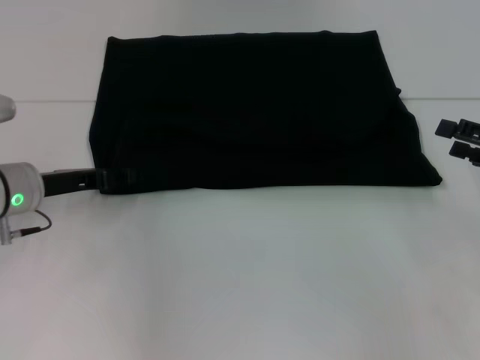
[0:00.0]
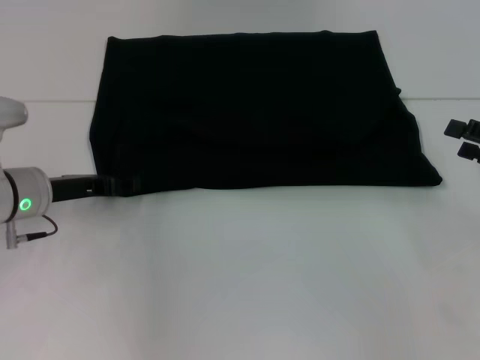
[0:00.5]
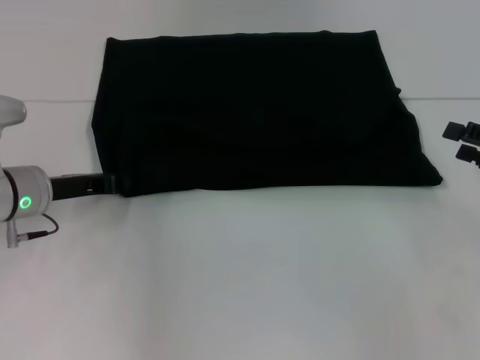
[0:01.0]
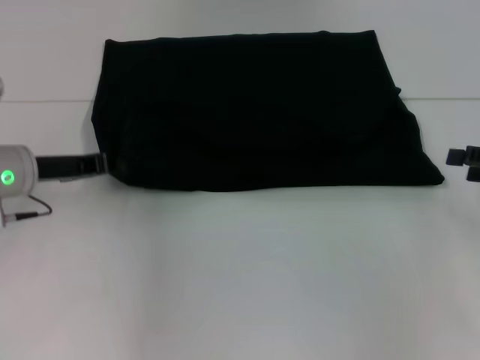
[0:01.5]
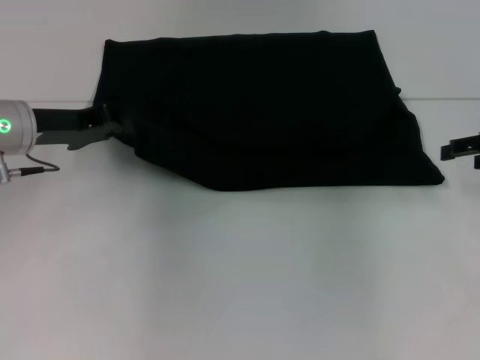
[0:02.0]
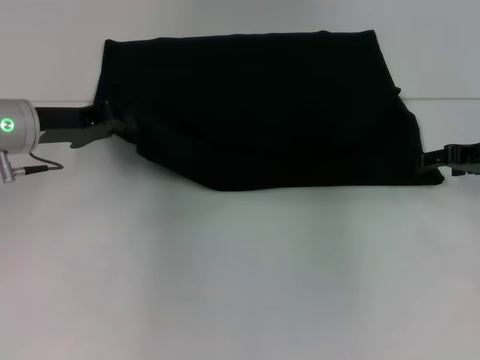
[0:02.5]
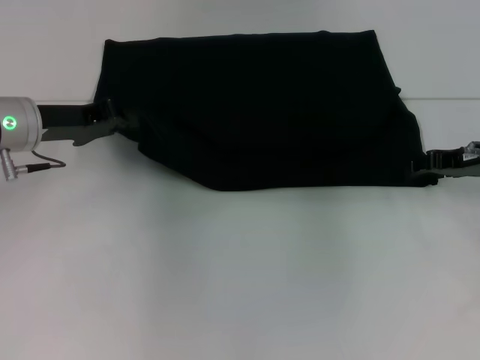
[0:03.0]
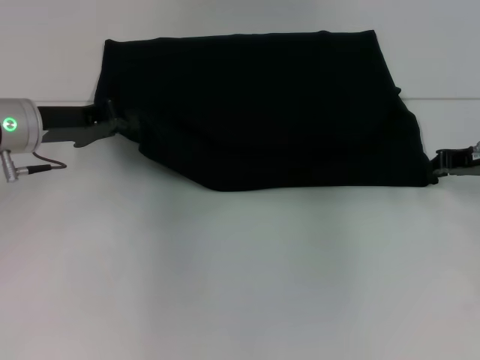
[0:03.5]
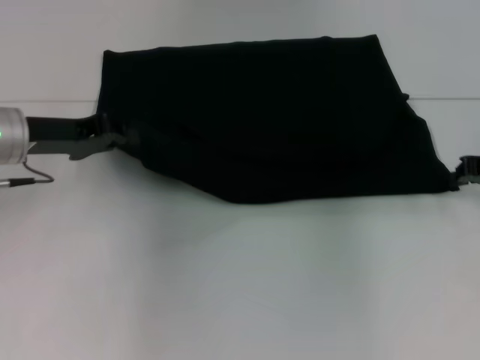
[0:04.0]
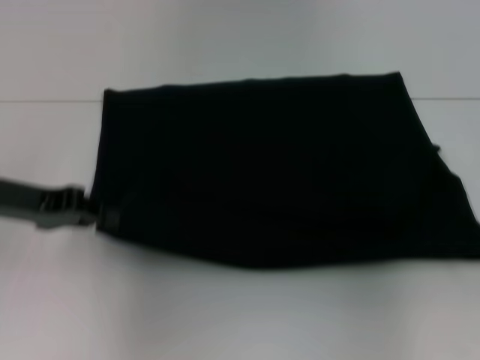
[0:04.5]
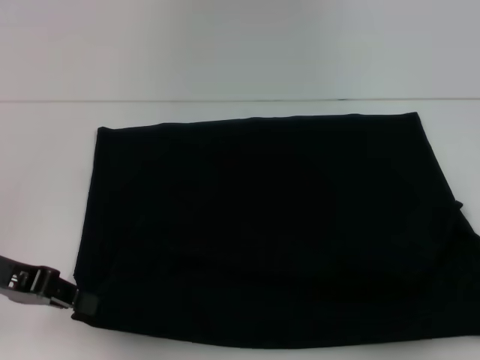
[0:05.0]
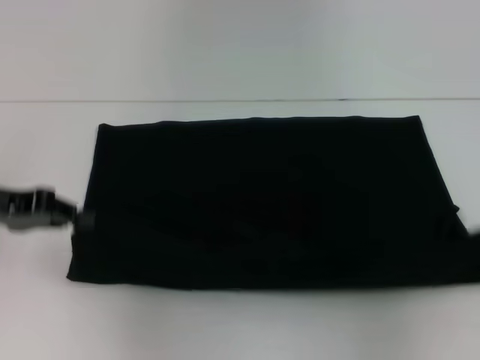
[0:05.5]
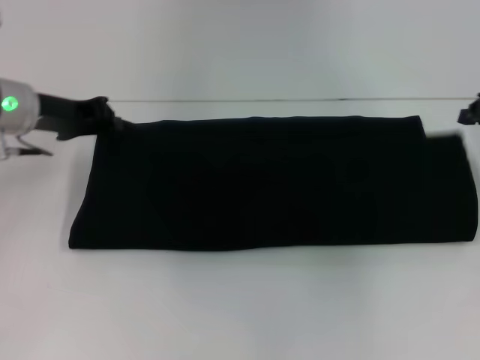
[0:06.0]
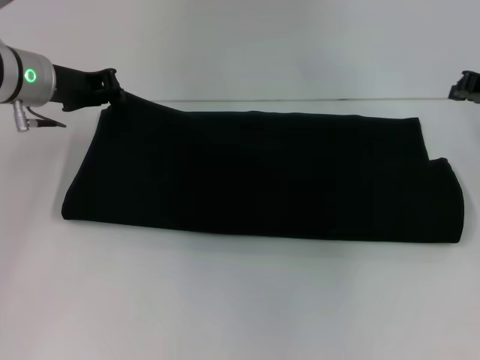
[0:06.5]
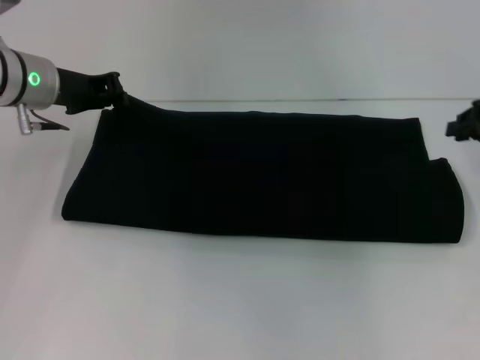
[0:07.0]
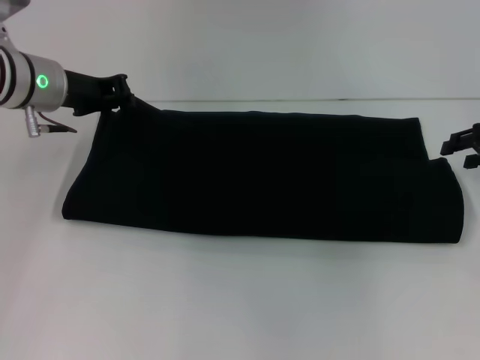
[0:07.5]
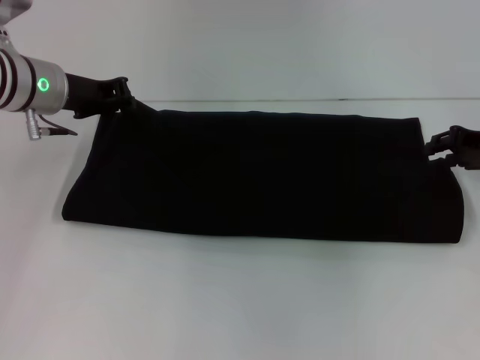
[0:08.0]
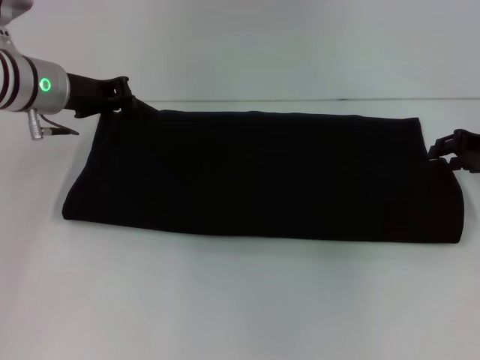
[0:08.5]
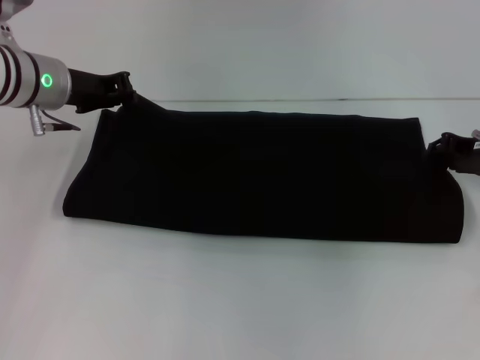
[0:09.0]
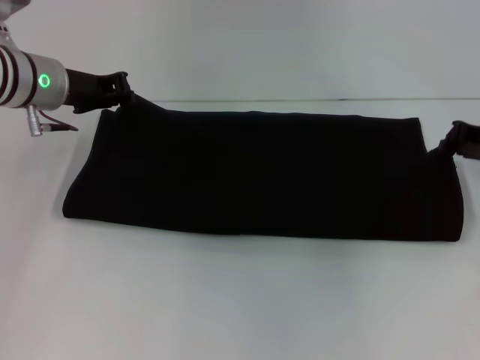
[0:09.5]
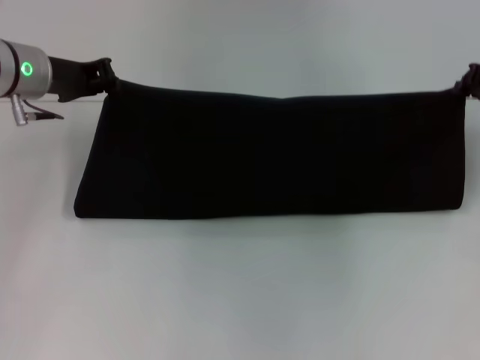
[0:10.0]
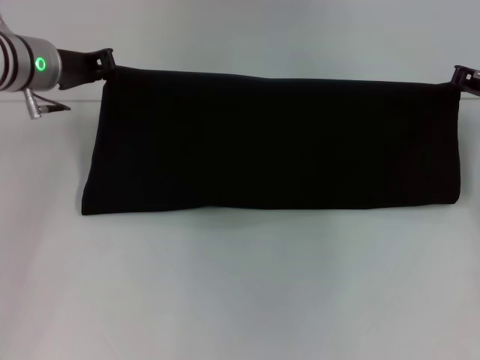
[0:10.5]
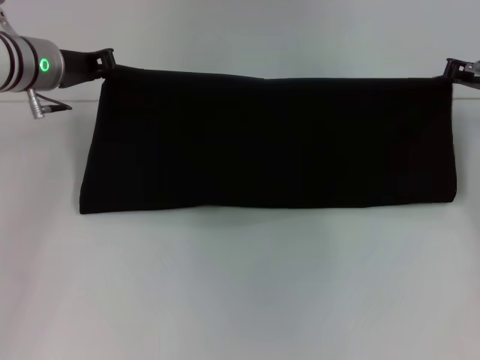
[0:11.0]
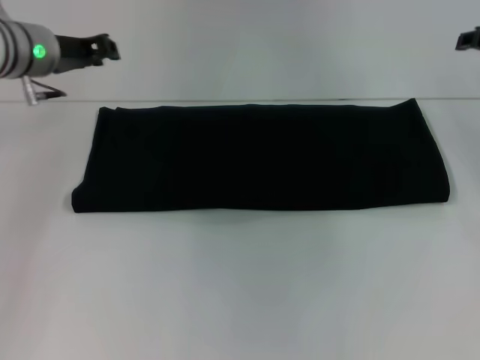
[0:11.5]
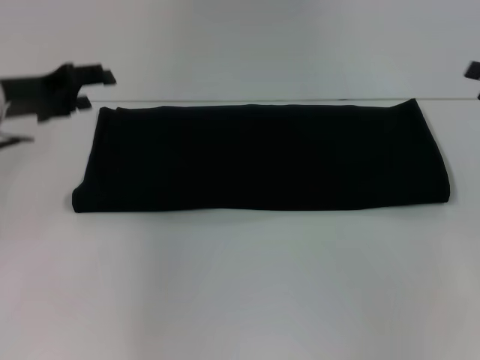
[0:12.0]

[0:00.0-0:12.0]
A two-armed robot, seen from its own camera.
Step, 0:00.0 to 0:04.5: Pull the clothes with your left hand.
Step, 0:00.0 to 0:04.5: Pull the clothes with your right hand.
Step, 0:05.0 to 0:11.0: Fold the clothes with your right hand.
0:00.0 to 0:02.0: The left gripper is displaced upward by about 5 cm, and closes, while the right gripper moves forward, approximately 5 cm.
0:02.0 to 0:04.0: The right gripper closes.
0:04.0 to 0:06.0: The left gripper moves about 10 cm backward and comes back. The right gripper goes backward and returns, roughly 15 cm each way.
0:06.0 to 0:08.0: The right gripper opens up.
0:08.0 to 0:10.0: The right gripper ends up about 5 cm from where it was, and closes its fingers.
0:10.0 to 0:12.0: The right gripper heads backward and to the right, covering approximately 10 cm, and opens. The left gripper shifts approximately 5 cm backward, and opens up.

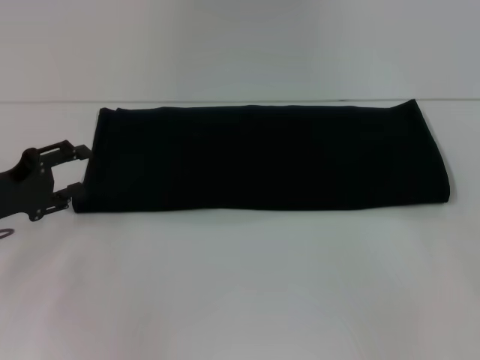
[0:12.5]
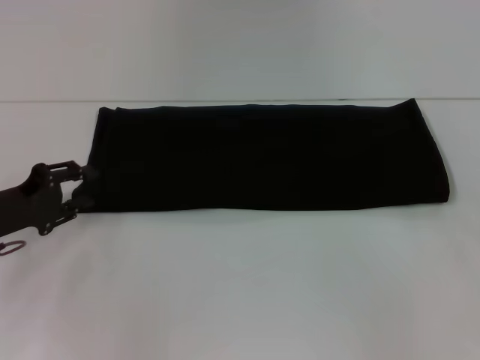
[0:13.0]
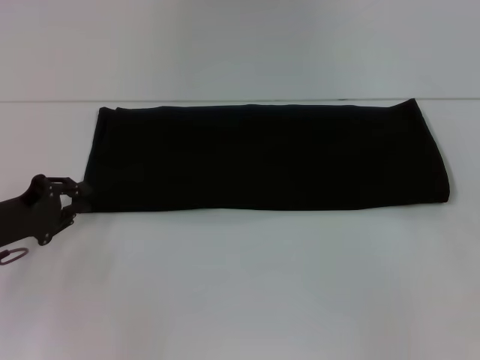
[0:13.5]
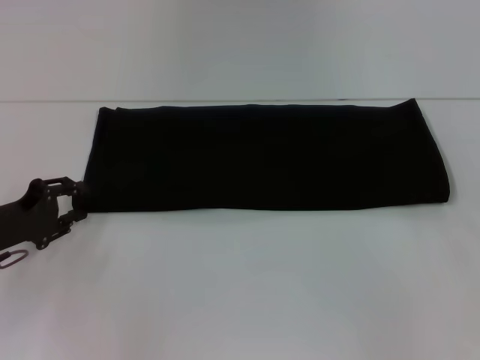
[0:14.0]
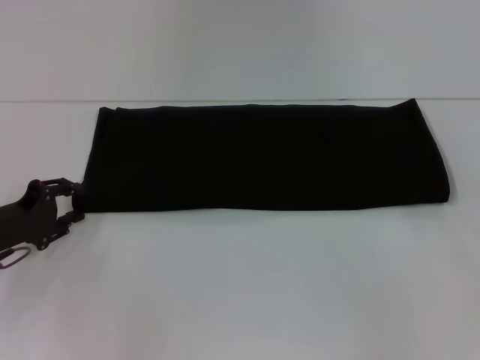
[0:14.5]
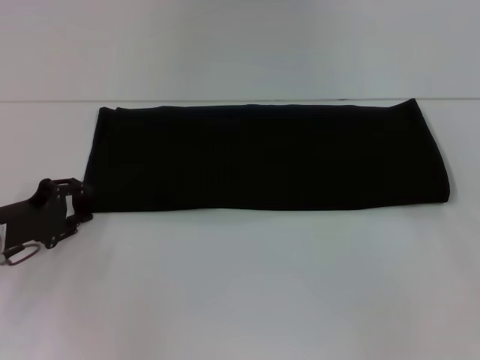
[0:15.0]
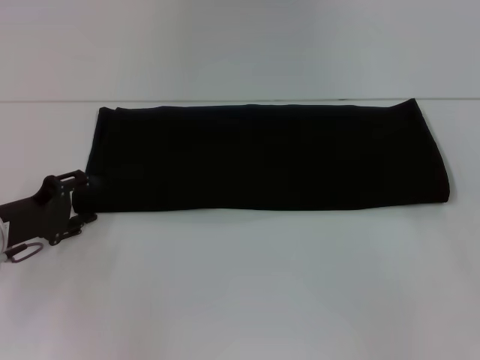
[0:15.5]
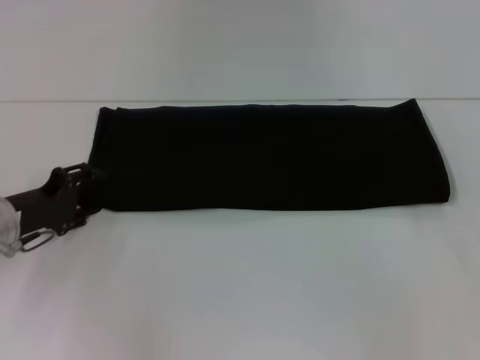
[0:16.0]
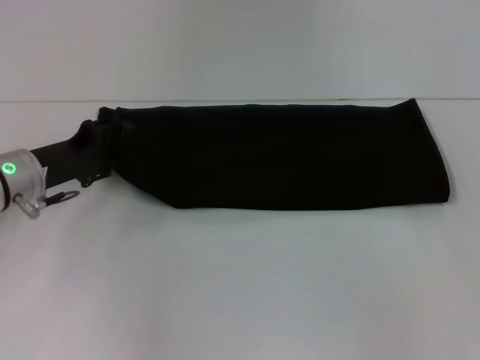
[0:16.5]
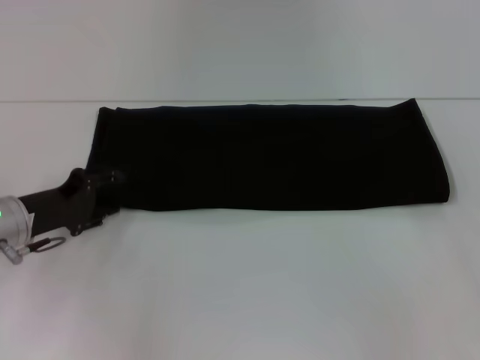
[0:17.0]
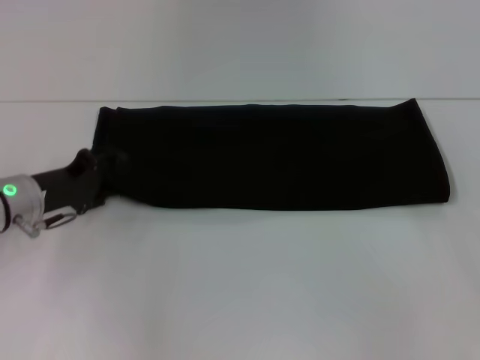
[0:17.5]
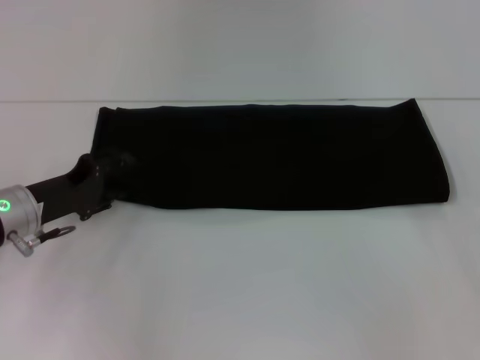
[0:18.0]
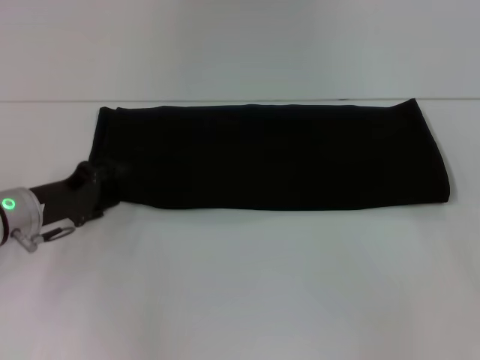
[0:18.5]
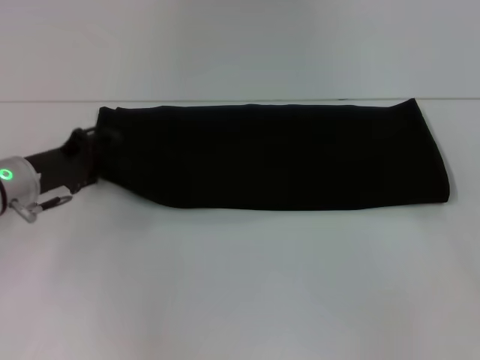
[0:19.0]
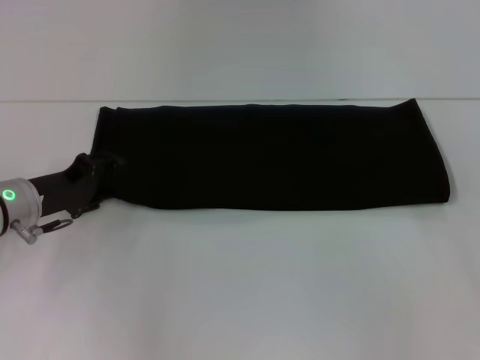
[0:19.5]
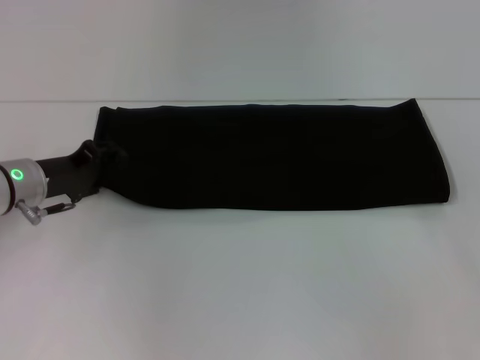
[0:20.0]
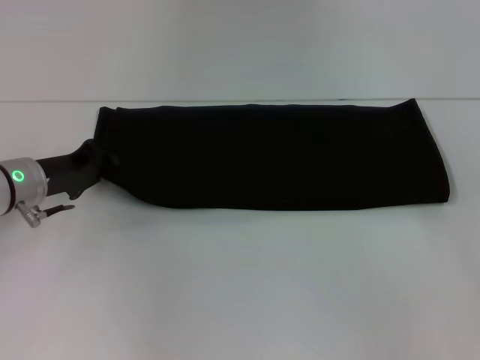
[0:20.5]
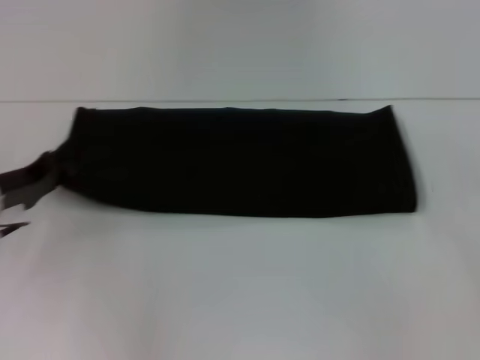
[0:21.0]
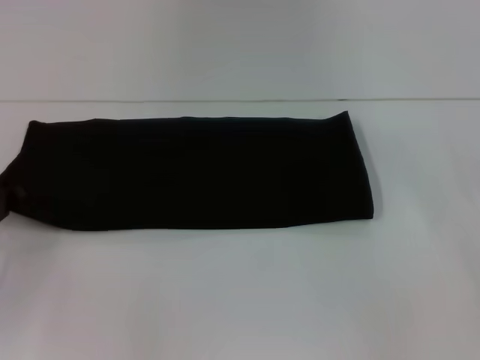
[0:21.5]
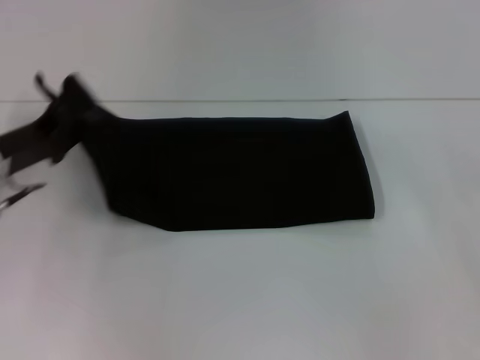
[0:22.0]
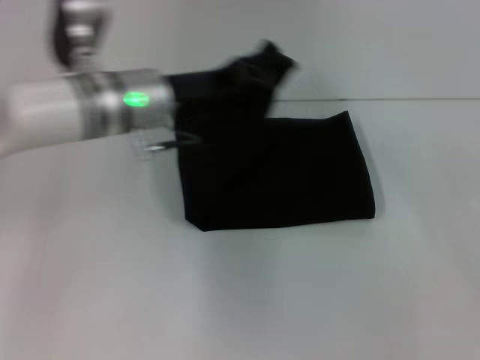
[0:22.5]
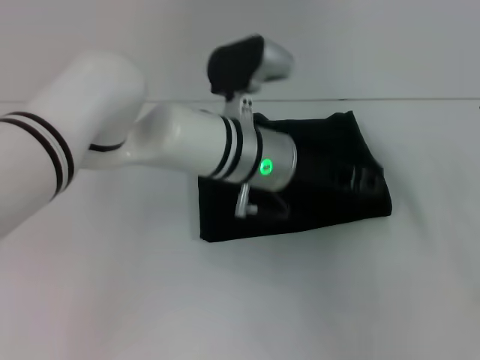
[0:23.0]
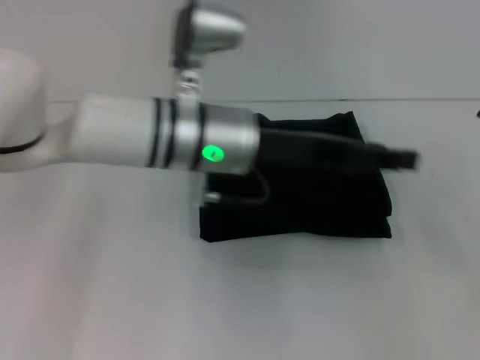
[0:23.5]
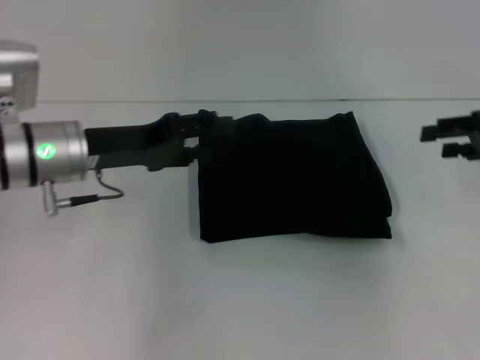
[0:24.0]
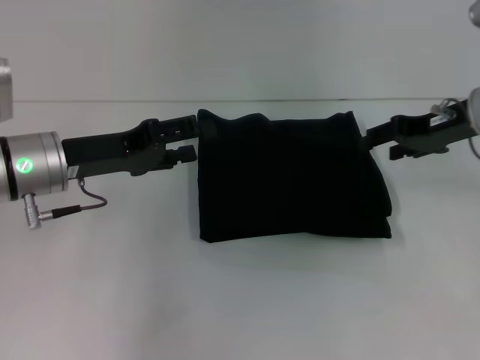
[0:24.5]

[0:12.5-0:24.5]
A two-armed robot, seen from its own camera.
Step, 0:12.5 to 0:23.0: Fold the clothes with your left hand.
0:12.5 to 0:14.5: The grippers make only small movements.
0:14.5 to 0:16.5: The left gripper goes about 5 cm forward.
0:16.5 to 0:18.5: There are only small adjustments of the grippers.
0:18.5 to 0:20.5: The left gripper closes up.
0:20.5 to 0:22.5: The left gripper heads to the right and upward, covering roughly 15 cm.
0:22.5 to 0:24.5: The left gripper is displaced to the left and backward by roughly 10 cm, and opens up; the right gripper goes about 15 cm to the left and forward.

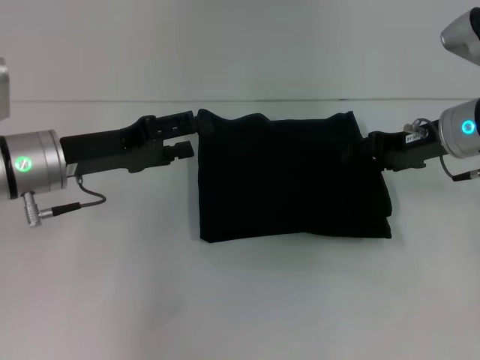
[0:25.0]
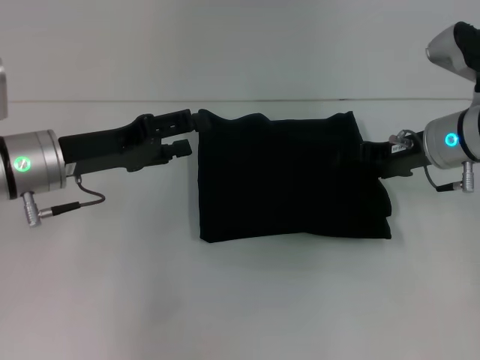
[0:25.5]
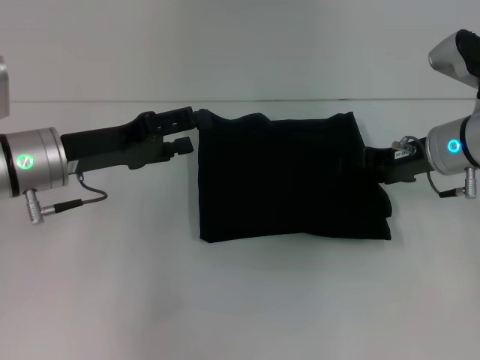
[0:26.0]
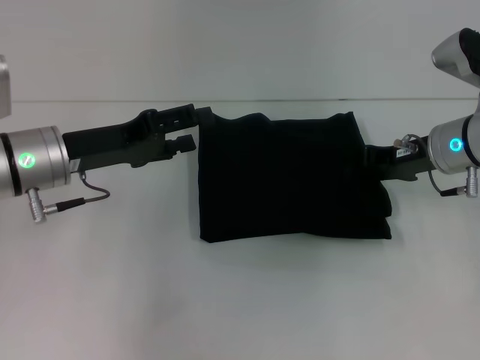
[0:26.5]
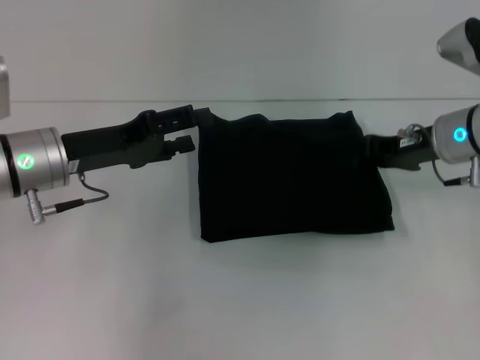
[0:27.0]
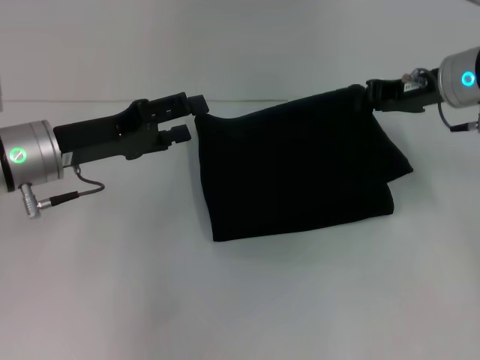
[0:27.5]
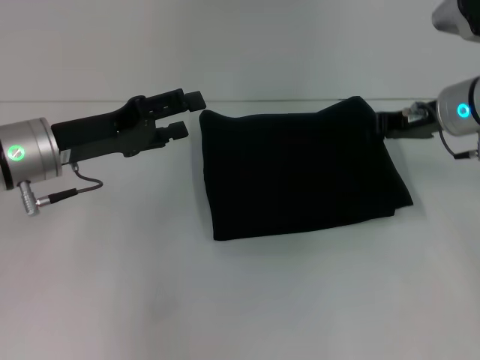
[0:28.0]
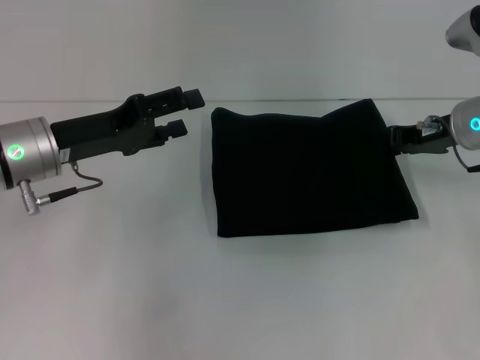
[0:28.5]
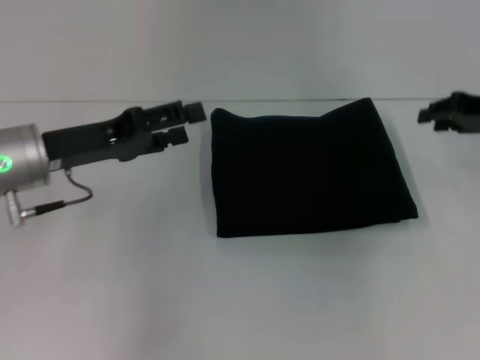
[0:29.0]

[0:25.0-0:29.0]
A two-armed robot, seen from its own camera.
0:25.0 to 0:27.0: The right gripper closes.
0:27.0 to 0:29.0: The right gripper travels to the right by roughly 10 cm.
